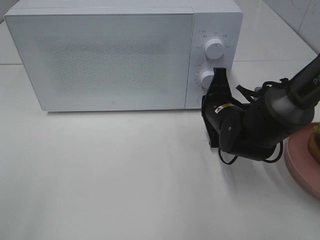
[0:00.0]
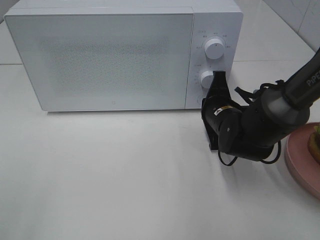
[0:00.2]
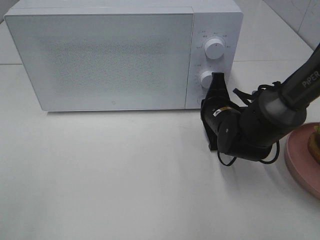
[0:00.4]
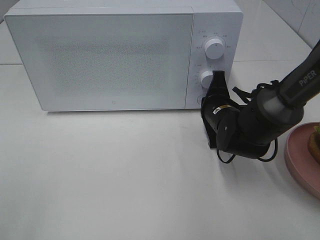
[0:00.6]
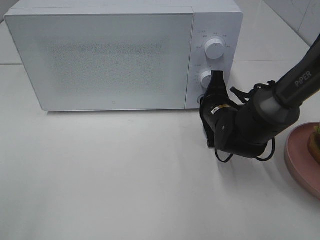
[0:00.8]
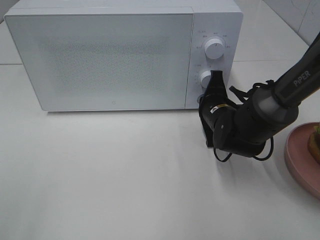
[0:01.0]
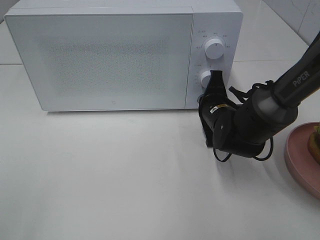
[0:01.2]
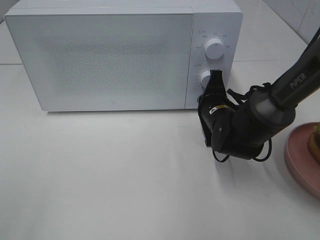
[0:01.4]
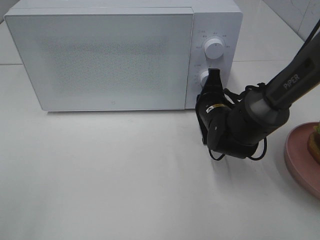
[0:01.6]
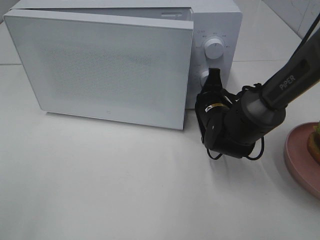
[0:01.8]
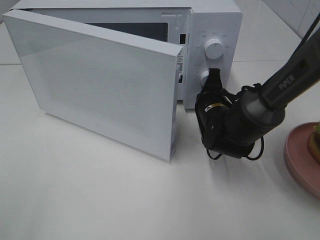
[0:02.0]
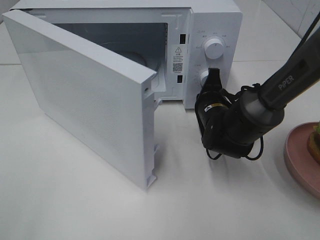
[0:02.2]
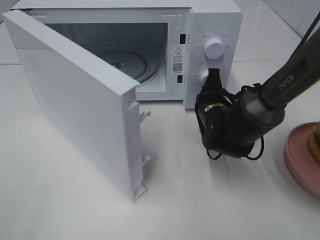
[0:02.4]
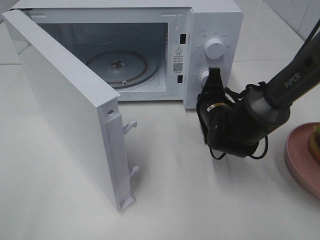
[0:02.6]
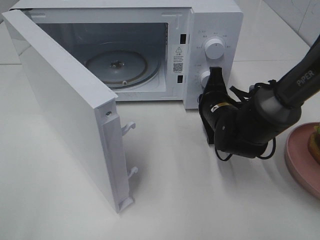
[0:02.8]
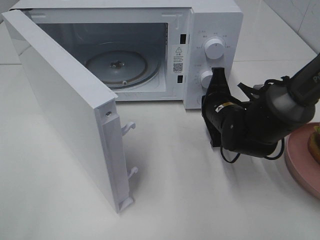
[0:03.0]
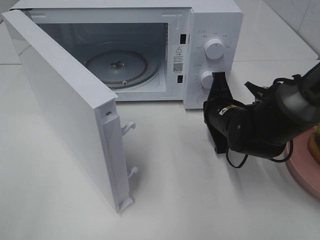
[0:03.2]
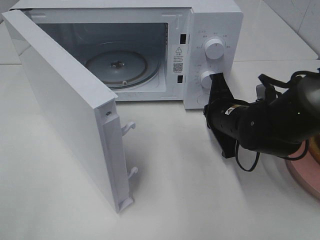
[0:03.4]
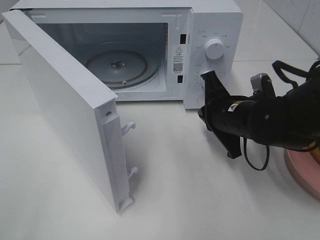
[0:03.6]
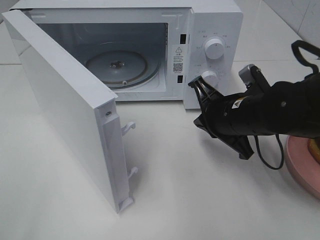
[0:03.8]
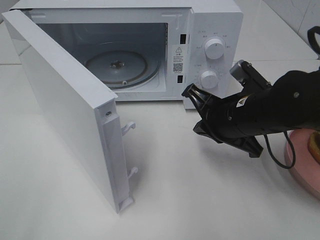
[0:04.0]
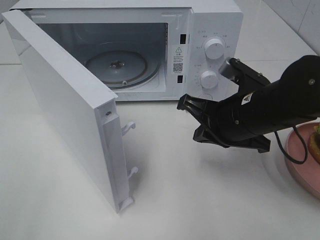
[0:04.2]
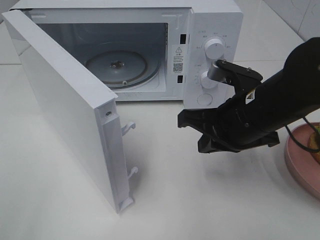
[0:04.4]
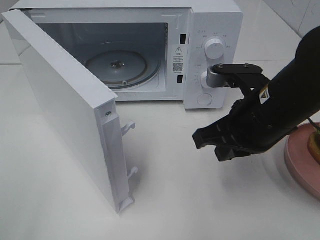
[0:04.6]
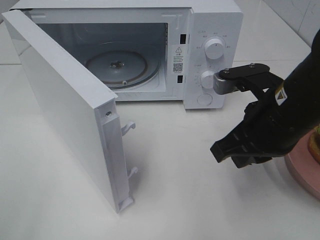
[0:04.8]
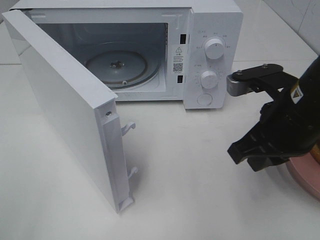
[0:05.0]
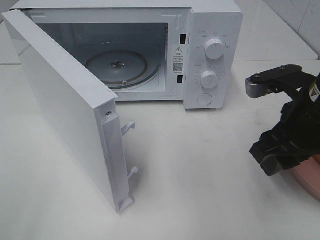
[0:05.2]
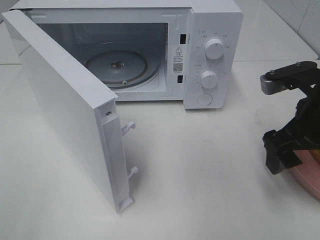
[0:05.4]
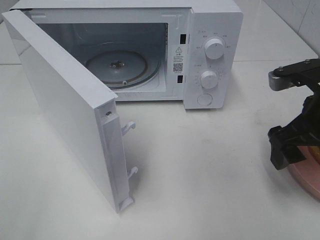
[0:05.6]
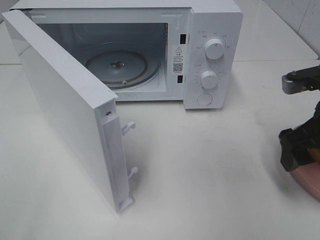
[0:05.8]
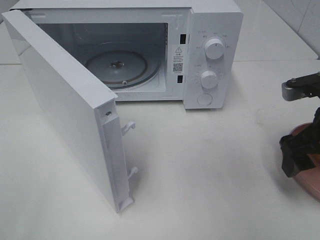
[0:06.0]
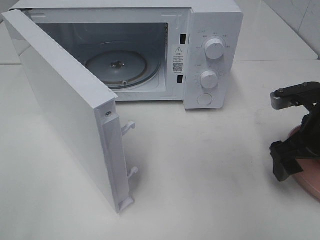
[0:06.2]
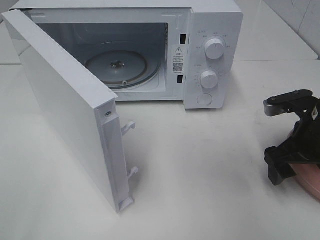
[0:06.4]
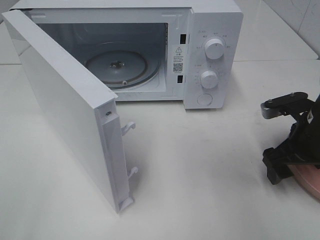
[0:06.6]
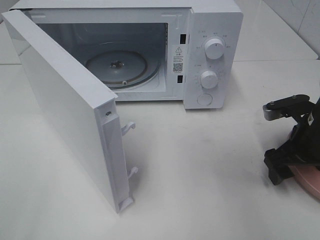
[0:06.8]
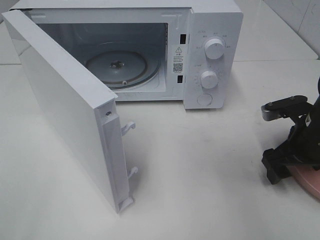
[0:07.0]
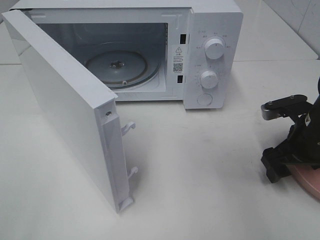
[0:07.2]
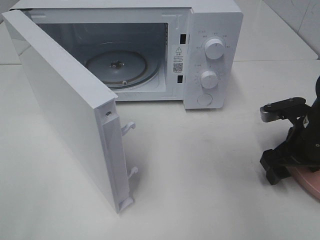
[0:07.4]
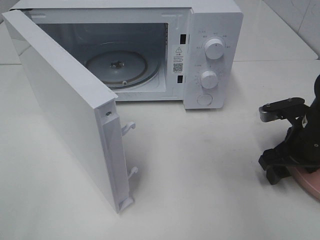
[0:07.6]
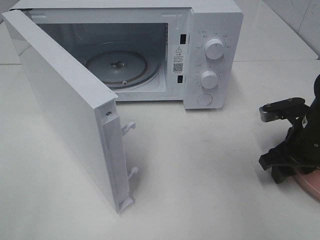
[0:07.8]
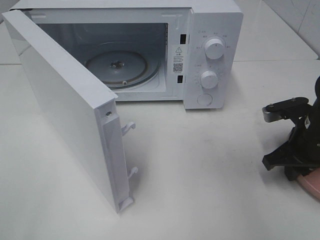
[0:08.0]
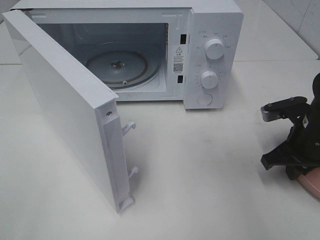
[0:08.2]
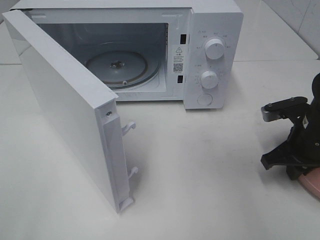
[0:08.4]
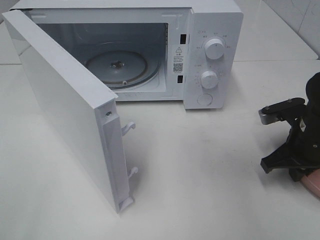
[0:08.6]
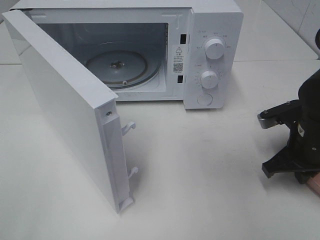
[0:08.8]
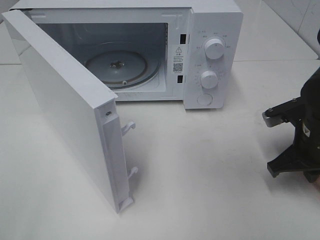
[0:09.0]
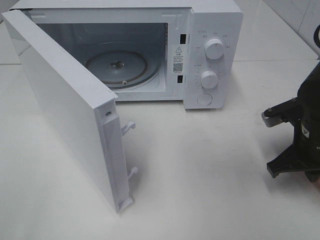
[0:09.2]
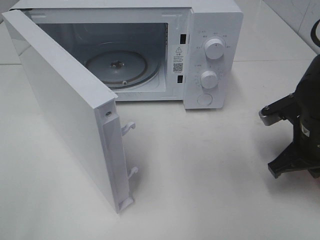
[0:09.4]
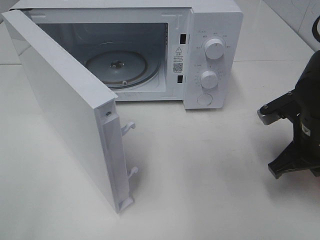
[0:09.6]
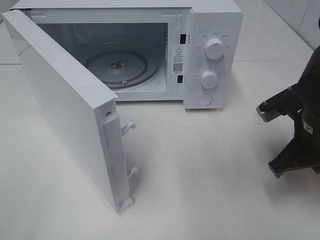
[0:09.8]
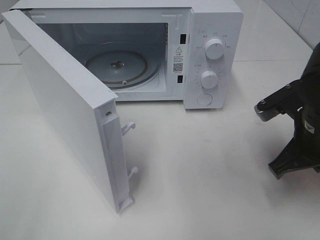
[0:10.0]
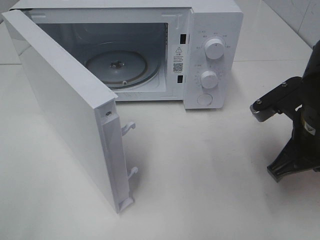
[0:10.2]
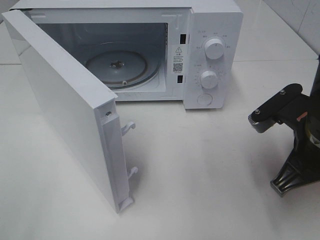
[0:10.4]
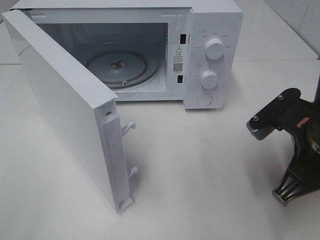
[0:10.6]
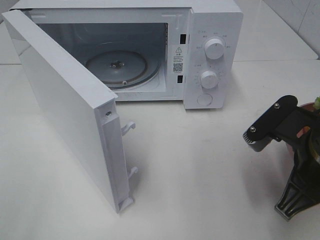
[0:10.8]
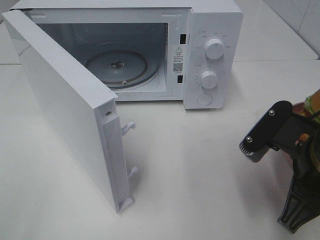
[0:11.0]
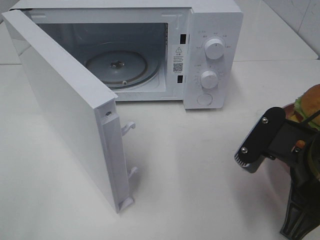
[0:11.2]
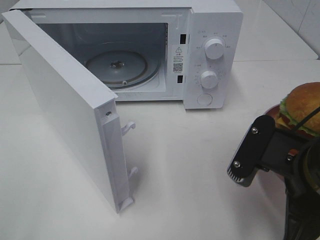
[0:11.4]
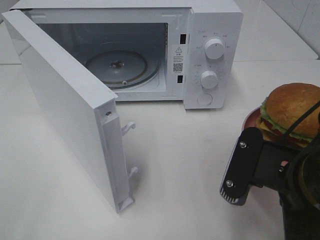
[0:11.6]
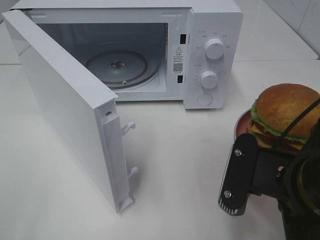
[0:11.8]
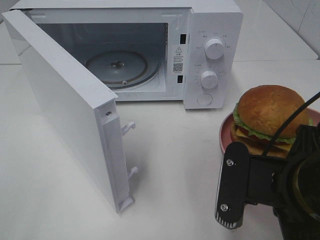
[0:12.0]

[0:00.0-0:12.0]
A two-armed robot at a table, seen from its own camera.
Task of the whole recording: Heat the burger.
Step, 0:00.0 to 0:03.2: Right hand: press the switch.
Step, 0:03.4 to 0:09.0: Right hand: grab the plate with the hamburger.
0:00.0 to 0:01.6: The grippers make only small movements.
0:03.0 to 0:04.4: The right gripper heads upward and backward, covering approximately 15 cm.
0:04.4 to 0:06.0: The right gripper heads to the right, covering approximately 10 cm, and opens up.
0:06.0 to 0:07.6: The right gripper is displaced downward by roughly 10 cm.
0:07.6 to 0:09.0: The right gripper closes.
0:09.0 to 0:10.4: The right gripper heads backward, upward and to the left, covering roughly 10 cm.
0:10.4 to 0:12.0: The right gripper moves backward and to the left, roughly 10 cm.

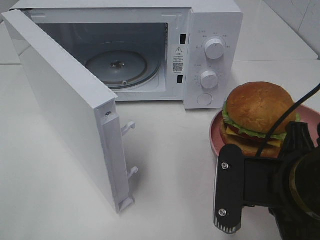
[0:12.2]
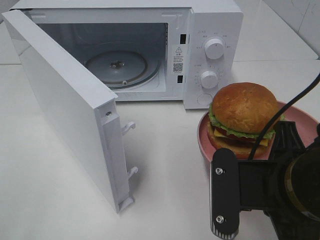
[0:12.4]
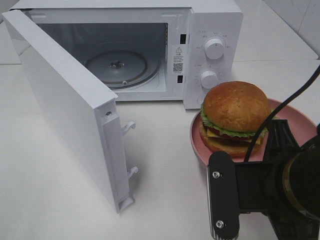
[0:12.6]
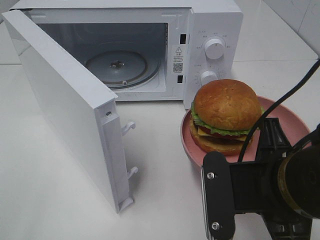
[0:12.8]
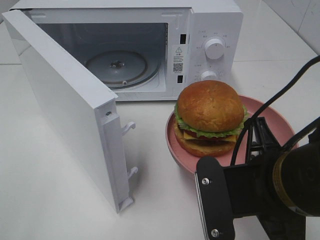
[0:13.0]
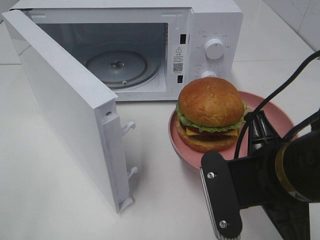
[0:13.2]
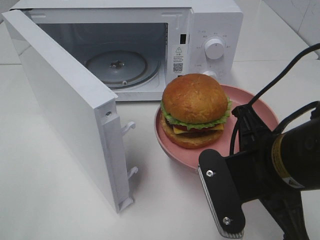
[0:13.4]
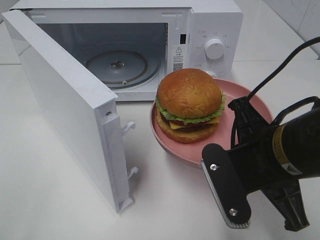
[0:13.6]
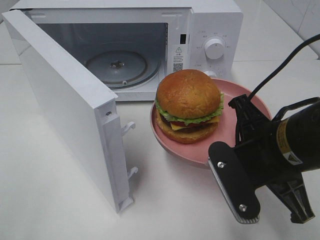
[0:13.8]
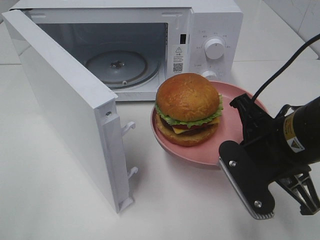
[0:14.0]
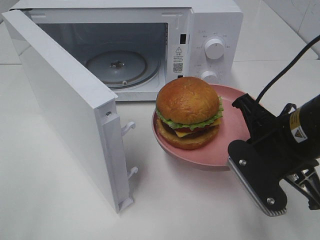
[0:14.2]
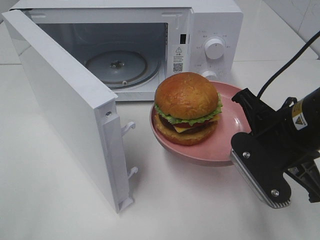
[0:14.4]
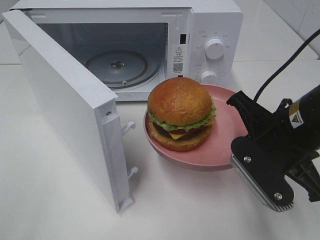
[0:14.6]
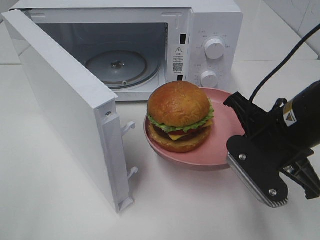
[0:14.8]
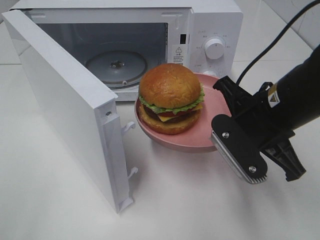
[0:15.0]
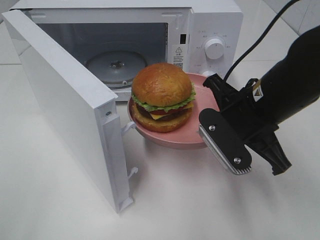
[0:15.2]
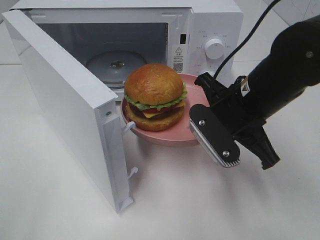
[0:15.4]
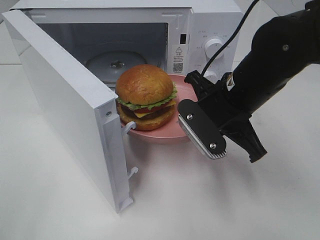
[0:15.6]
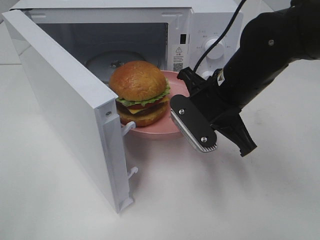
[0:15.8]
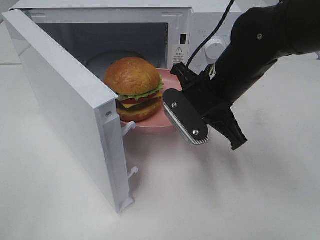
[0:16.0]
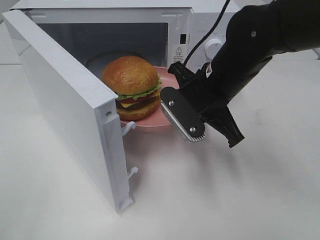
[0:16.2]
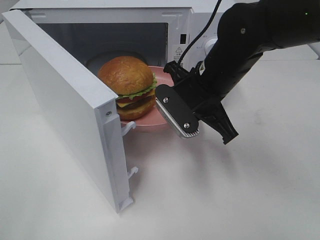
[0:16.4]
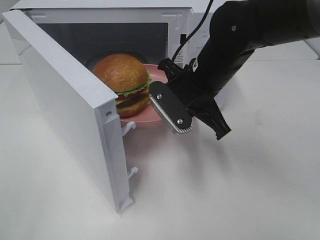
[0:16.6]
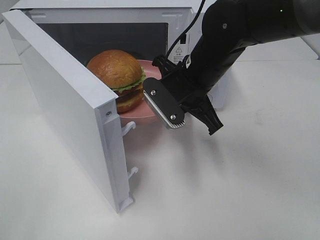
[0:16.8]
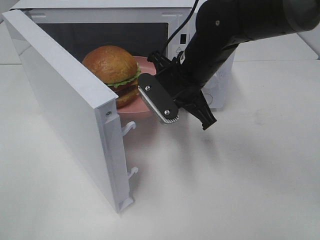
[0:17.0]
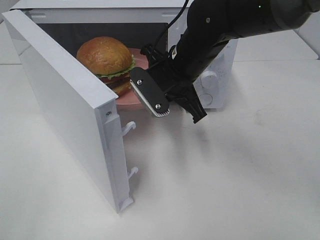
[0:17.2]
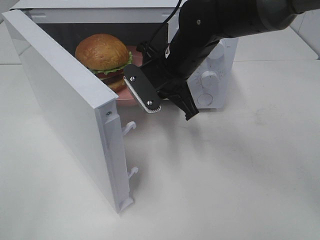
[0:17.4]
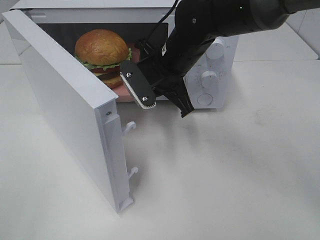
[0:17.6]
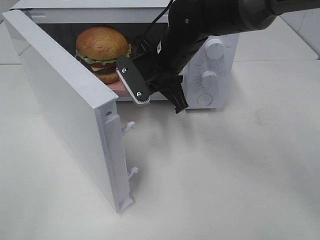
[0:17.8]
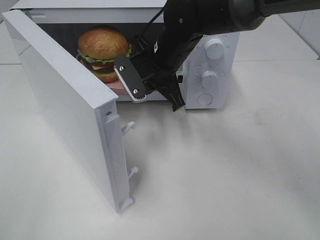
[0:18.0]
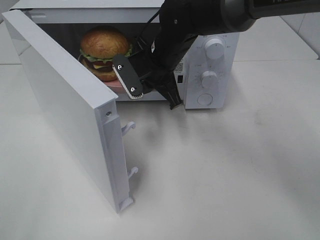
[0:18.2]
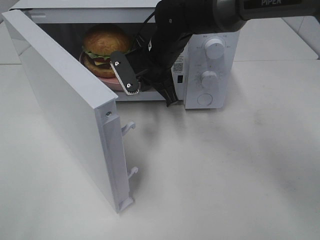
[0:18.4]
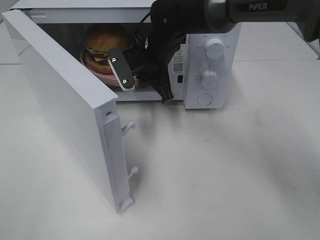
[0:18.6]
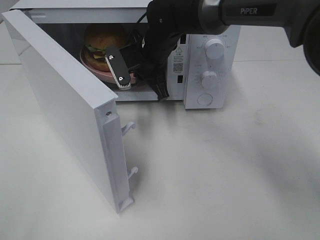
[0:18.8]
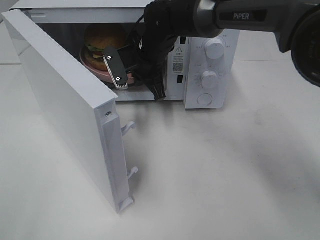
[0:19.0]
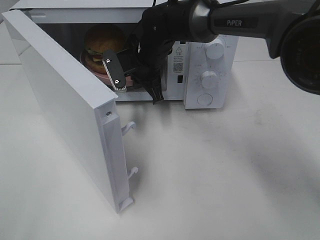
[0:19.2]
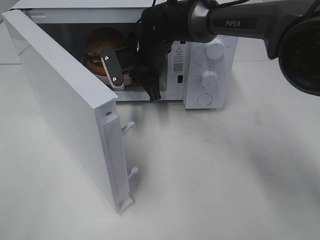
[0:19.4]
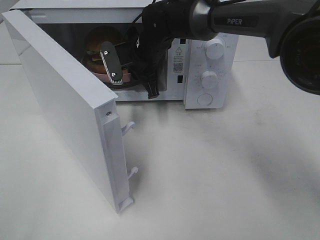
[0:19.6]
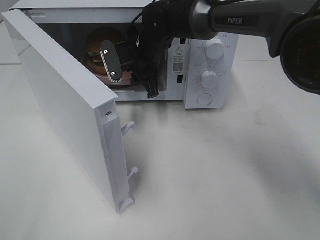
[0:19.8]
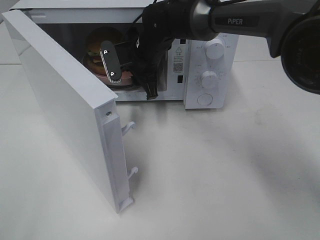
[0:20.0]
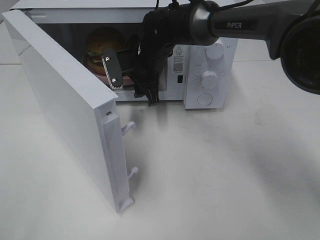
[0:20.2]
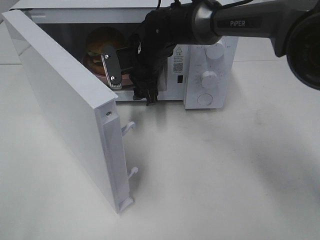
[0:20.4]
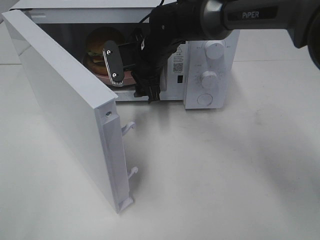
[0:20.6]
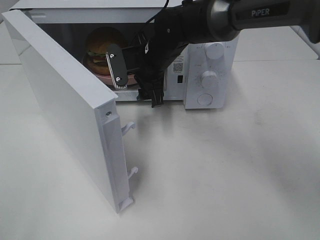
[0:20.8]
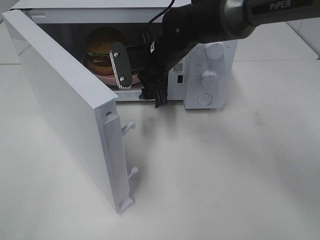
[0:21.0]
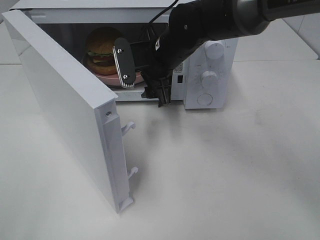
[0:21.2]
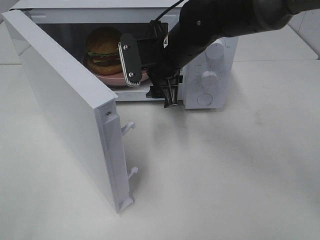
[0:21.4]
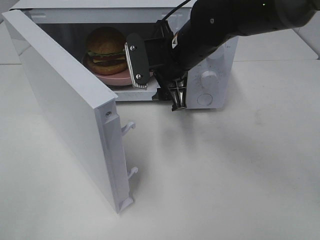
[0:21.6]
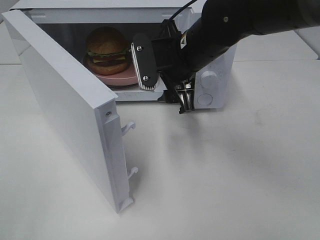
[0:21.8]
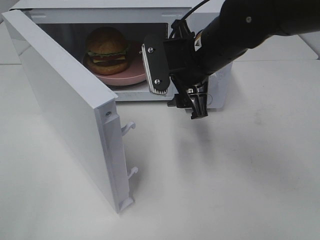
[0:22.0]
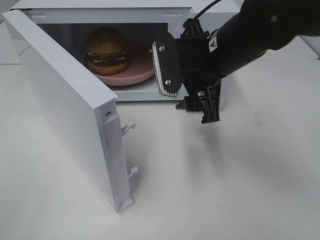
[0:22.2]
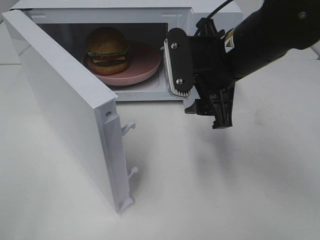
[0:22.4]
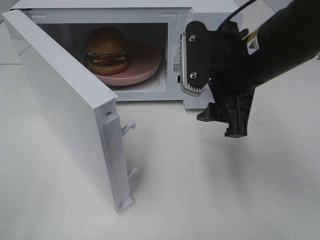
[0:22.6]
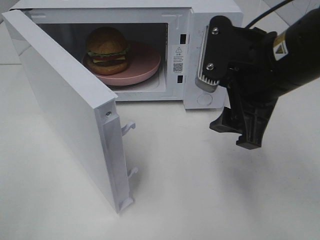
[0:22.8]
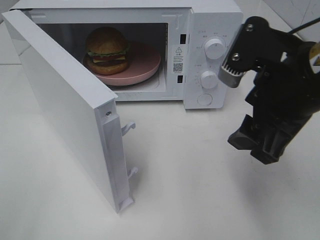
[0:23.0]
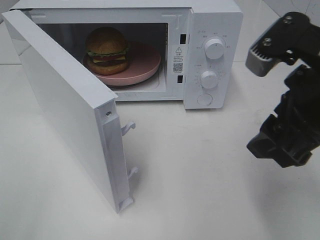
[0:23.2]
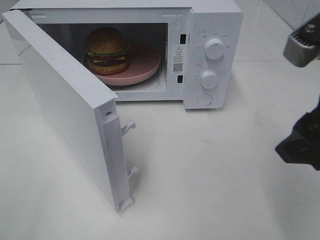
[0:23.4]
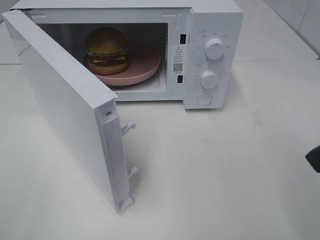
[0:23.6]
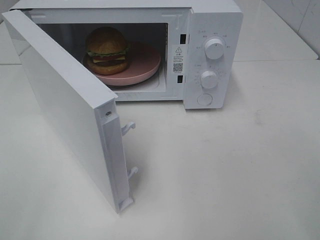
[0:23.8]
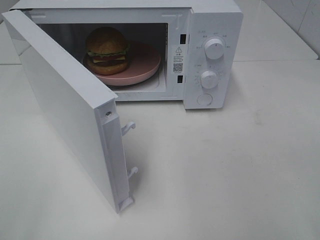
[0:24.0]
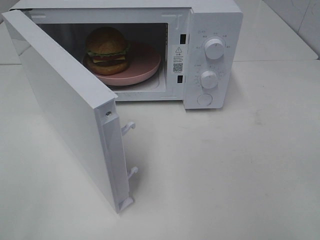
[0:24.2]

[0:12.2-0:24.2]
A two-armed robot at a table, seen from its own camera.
Task of the whole recording: Heat the burger.
Step, 0:12.2 to 0:20.2: Right hand: place the plate in the microwave.
0:12.2 to 0:13.8: The right gripper travels forward by approximately 5 cm.
0:13.8 to 0:15.2: The right gripper heads forward, covering about 5 cm.
0:15.2 to 0:16.6: The right gripper shifts roughly 10 cm forward and to the left.
0:16.6 to 0:18.2: The right gripper moves forward and to the left, about 10 cm.
0:18.2 to 0:19.8: The right gripper shifts by some 5 cm, and opens.
0:19.8 to 0:21.2: The right gripper shifts approximately 5 cm backward, and opens.
0:21.2 to 0:22.6: The right gripper heads backward, to the right and upward, covering approximately 20 cm.
0:22.6 to 0:24.2: The right gripper heads backward and to the right, covering some 25 cm.
